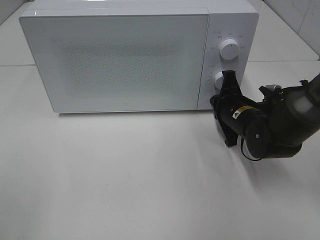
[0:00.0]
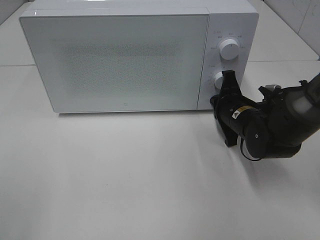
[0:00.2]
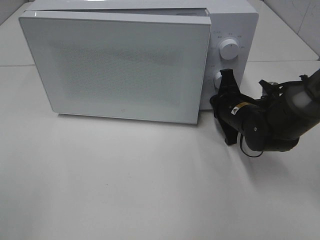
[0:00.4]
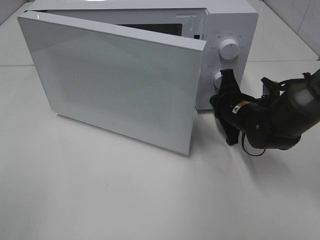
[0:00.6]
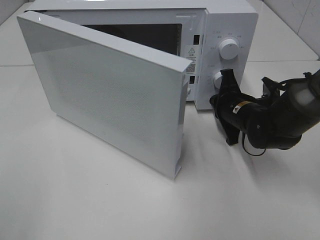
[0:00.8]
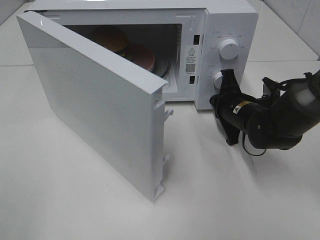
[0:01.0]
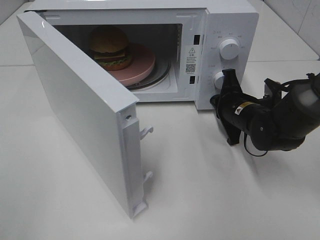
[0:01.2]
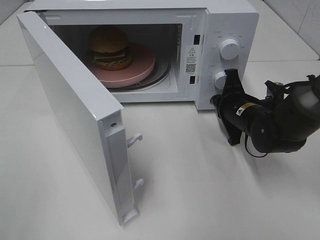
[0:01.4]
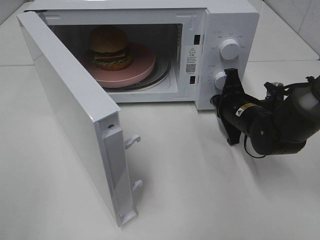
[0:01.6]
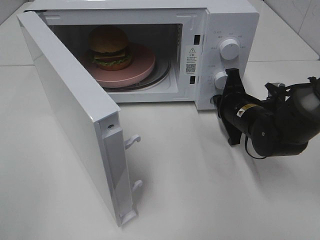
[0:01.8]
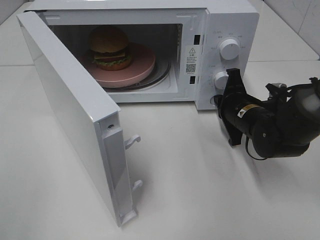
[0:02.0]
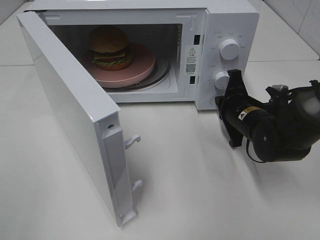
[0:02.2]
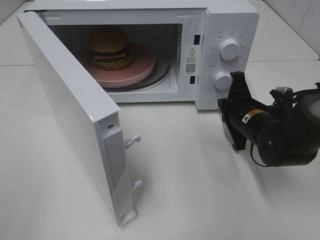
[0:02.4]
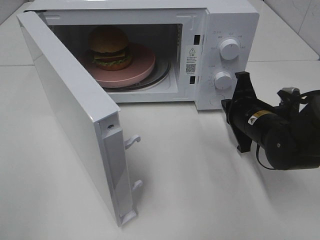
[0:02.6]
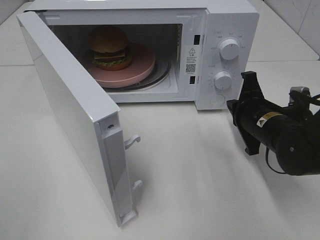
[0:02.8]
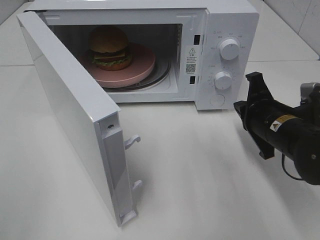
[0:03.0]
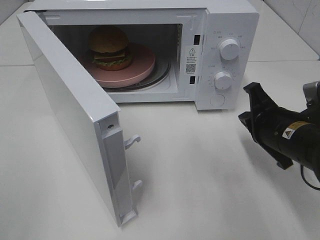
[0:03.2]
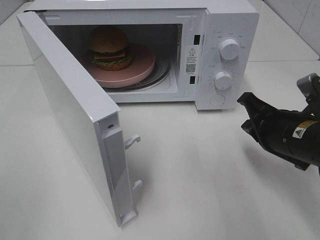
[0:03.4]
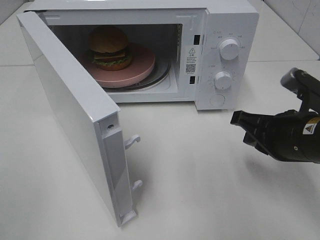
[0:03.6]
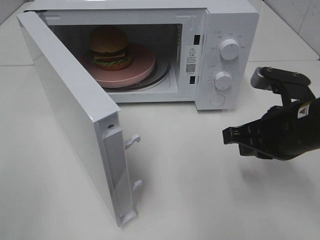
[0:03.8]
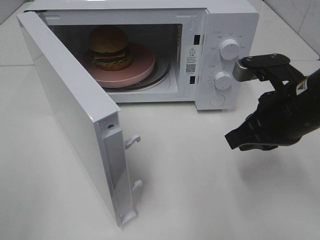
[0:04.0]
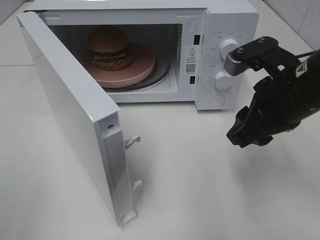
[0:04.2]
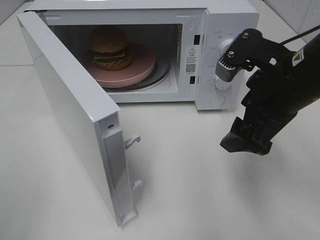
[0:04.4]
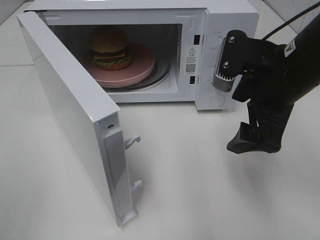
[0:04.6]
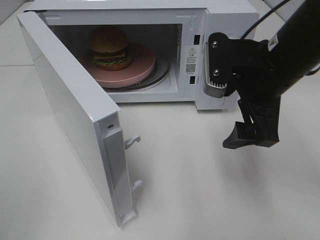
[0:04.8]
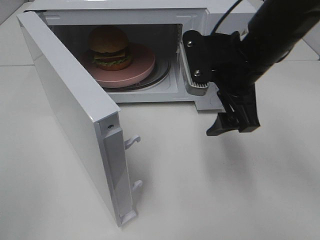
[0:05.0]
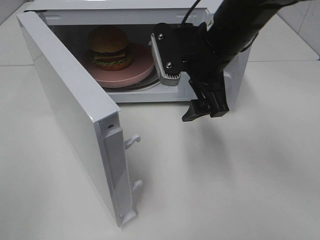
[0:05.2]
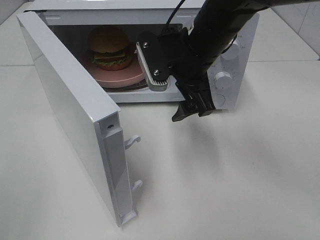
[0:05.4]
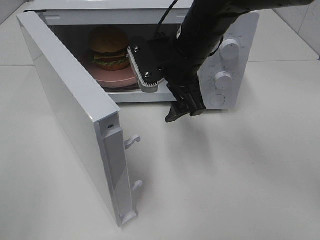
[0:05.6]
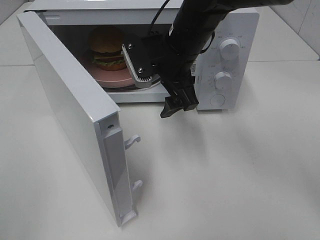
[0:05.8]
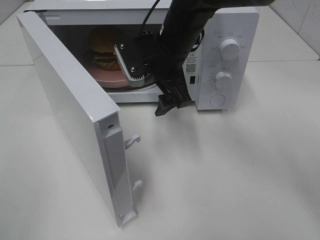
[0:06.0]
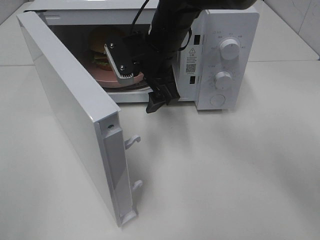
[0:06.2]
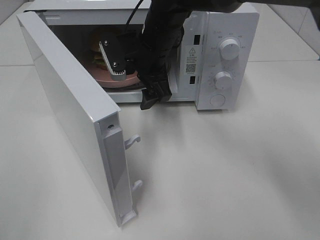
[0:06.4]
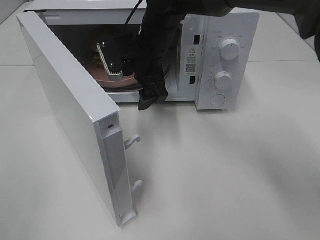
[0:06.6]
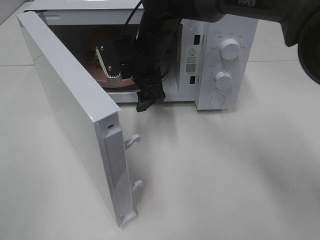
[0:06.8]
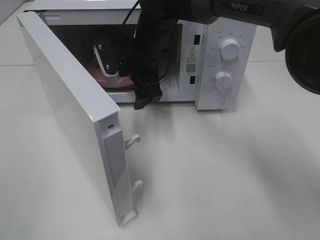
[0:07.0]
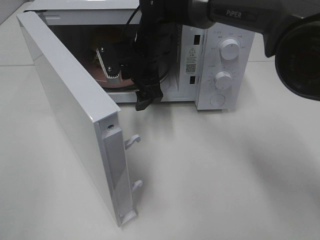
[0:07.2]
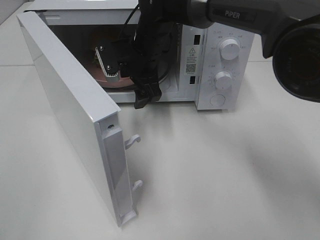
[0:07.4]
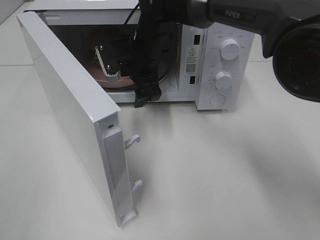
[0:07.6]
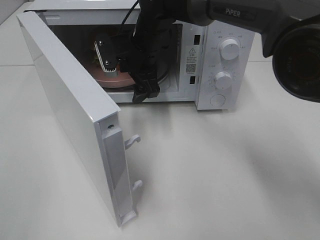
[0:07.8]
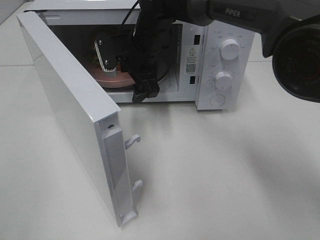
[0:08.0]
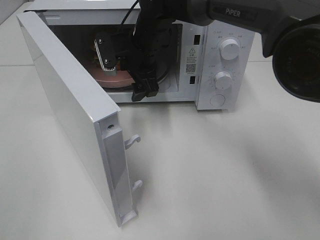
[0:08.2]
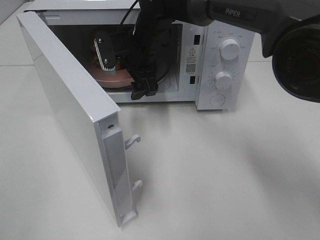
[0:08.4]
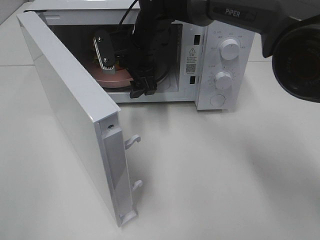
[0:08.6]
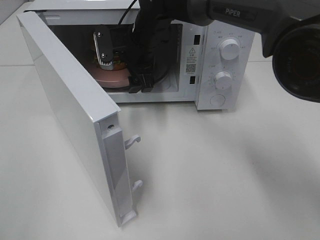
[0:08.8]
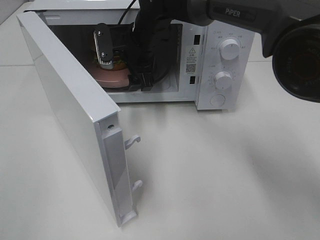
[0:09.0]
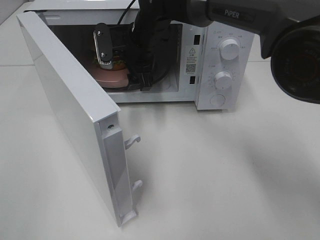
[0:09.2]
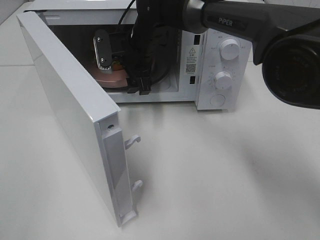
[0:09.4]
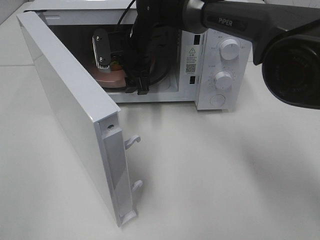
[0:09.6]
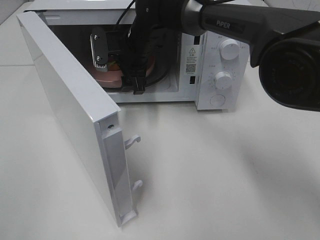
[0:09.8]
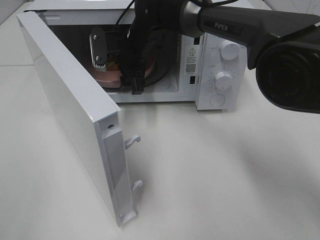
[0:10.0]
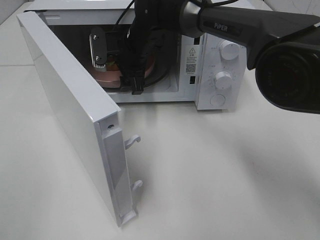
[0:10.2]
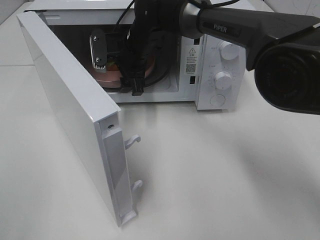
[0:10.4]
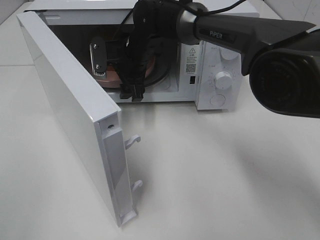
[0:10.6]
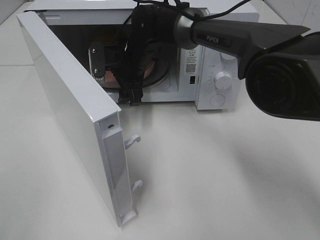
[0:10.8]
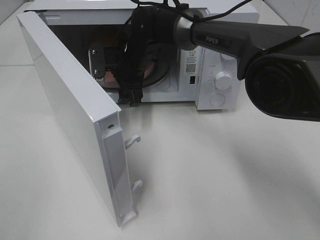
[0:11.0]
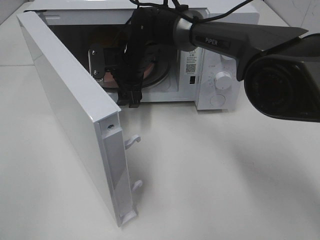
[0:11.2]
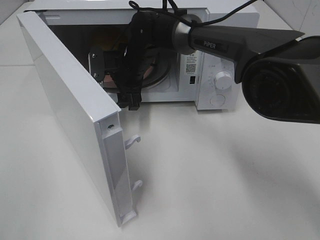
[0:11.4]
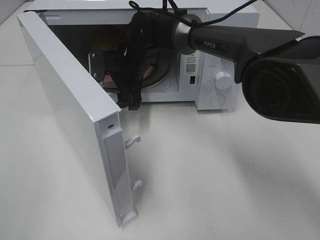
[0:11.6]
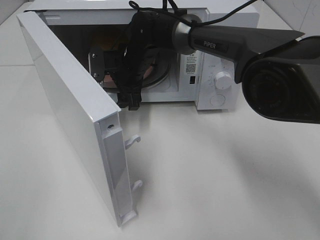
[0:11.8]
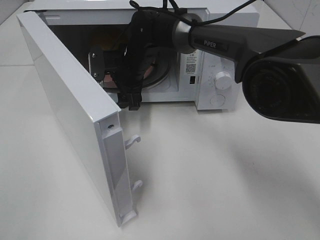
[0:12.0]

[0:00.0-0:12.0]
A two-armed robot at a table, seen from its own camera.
Task of the whole recording: Heat the burger.
Step, 0:00.0 to 0:02.2: Right hand: press the switch.
0:01.6 to 0:03.0: The right gripper goes some 10 cm backward.
0:03.0 to 0:04.4: The right gripper is displaced upward by roughly 10 cm, and opens up.
0:04.4 to 0:06.0: The right gripper is displaced to the left and forward by some 20 cm.
0:06.0 to 0:07.6: The right gripper travels forward by about 5 cm.
0:07.6 to 0:12.0: The grippers make only small movements.

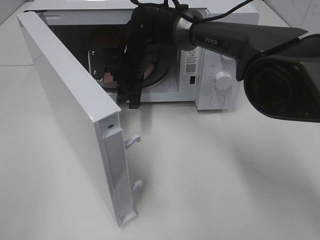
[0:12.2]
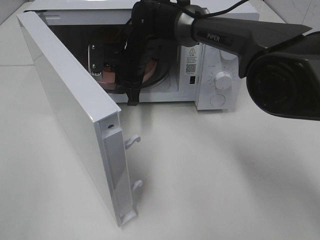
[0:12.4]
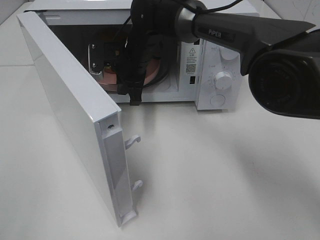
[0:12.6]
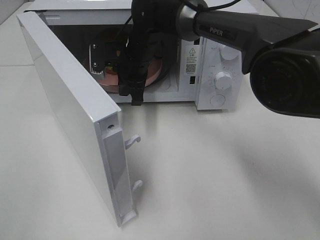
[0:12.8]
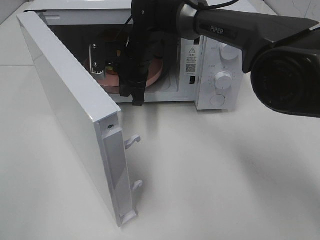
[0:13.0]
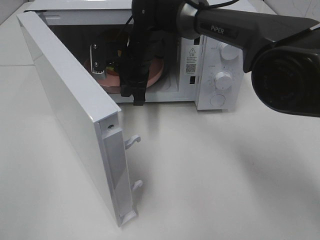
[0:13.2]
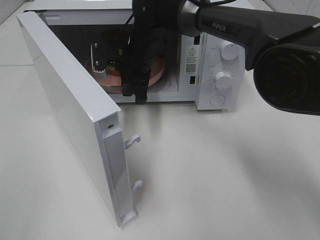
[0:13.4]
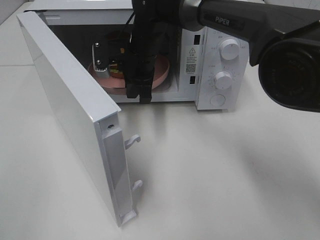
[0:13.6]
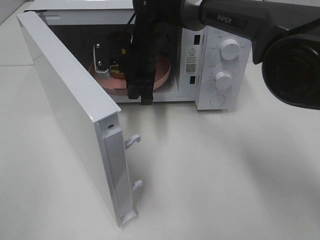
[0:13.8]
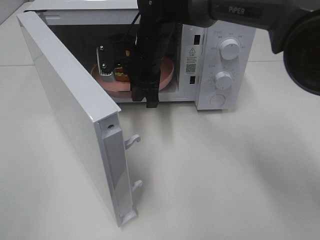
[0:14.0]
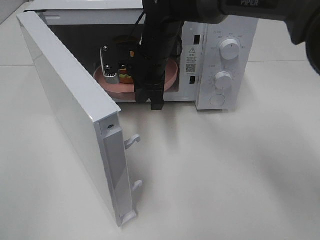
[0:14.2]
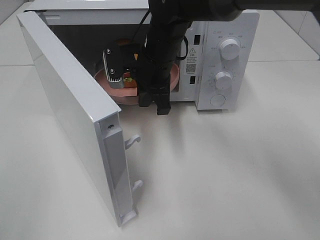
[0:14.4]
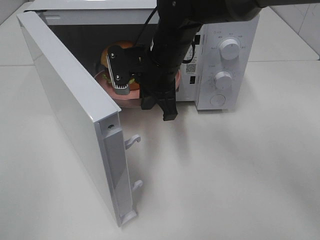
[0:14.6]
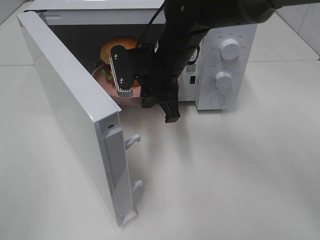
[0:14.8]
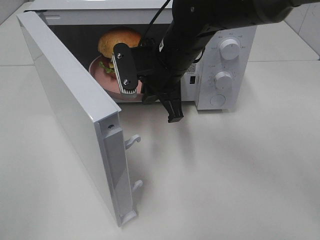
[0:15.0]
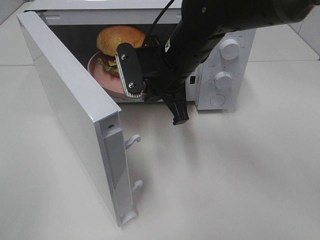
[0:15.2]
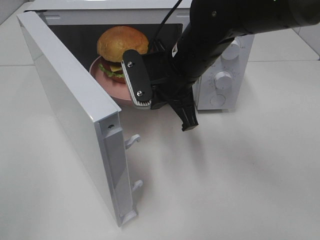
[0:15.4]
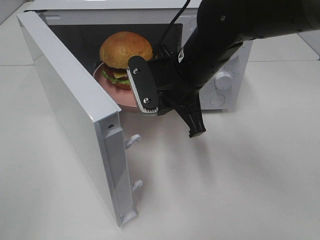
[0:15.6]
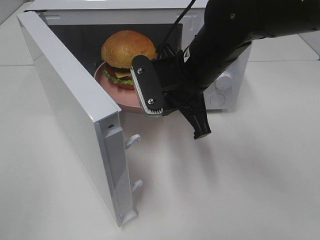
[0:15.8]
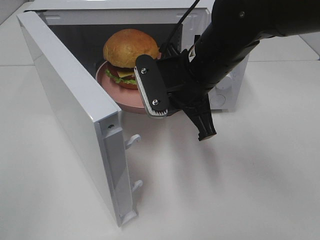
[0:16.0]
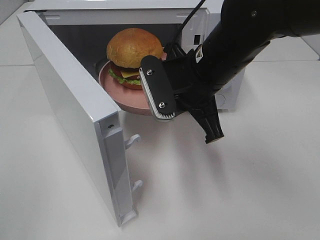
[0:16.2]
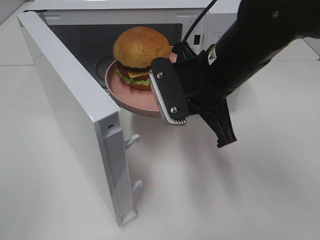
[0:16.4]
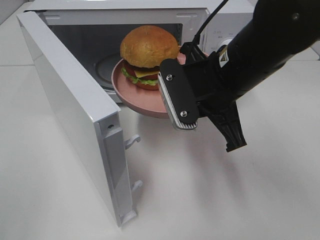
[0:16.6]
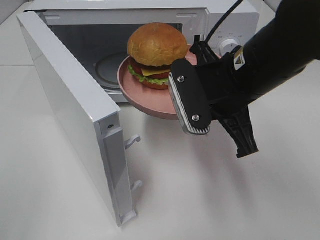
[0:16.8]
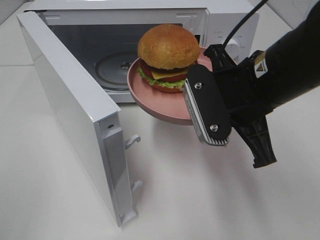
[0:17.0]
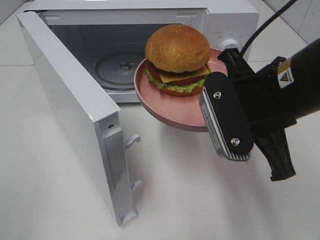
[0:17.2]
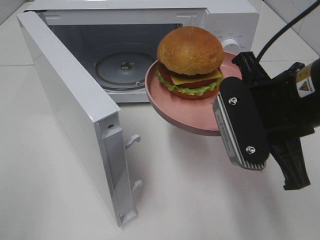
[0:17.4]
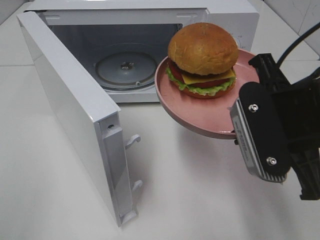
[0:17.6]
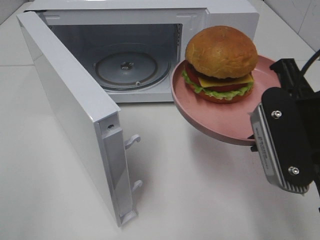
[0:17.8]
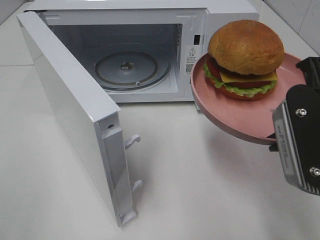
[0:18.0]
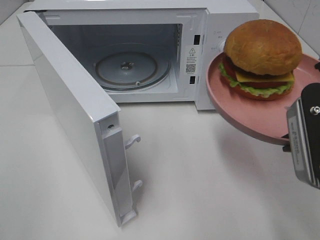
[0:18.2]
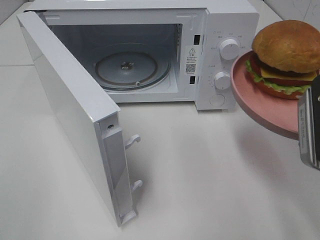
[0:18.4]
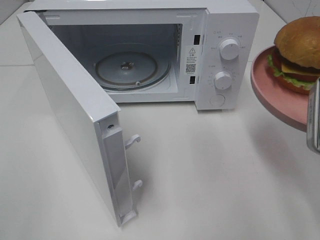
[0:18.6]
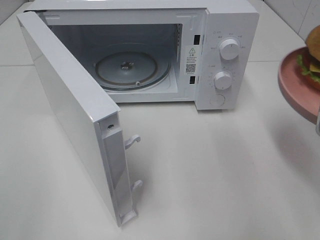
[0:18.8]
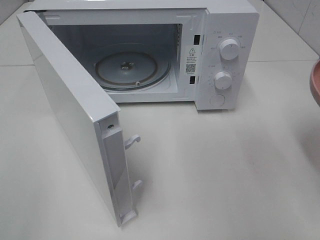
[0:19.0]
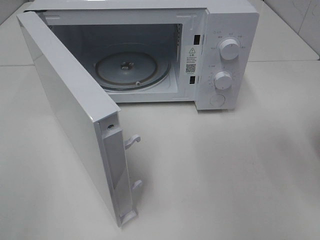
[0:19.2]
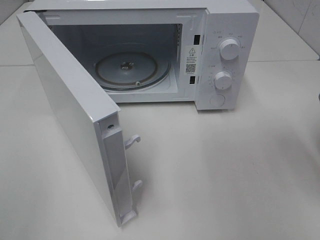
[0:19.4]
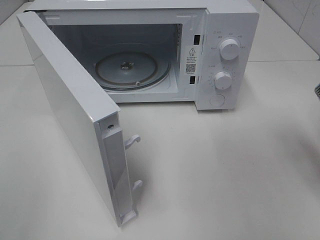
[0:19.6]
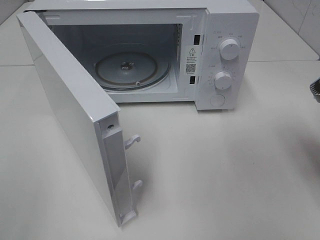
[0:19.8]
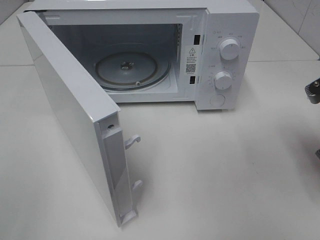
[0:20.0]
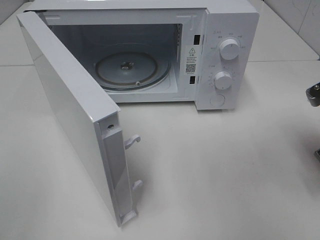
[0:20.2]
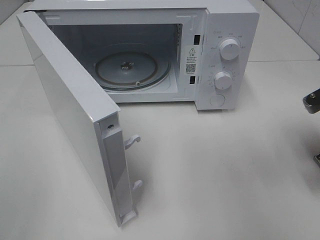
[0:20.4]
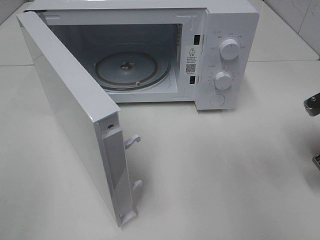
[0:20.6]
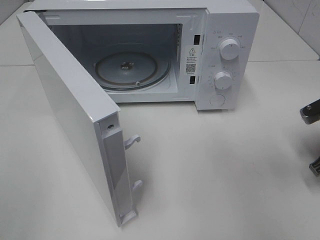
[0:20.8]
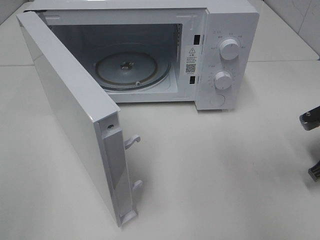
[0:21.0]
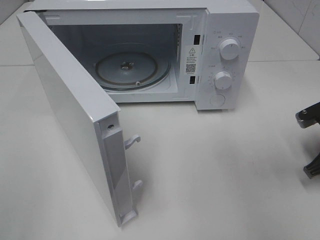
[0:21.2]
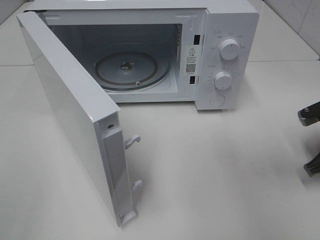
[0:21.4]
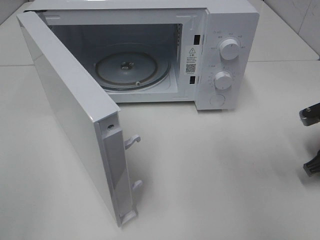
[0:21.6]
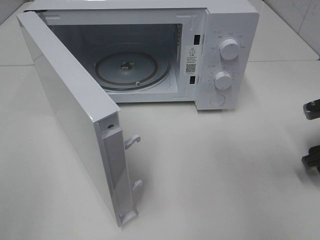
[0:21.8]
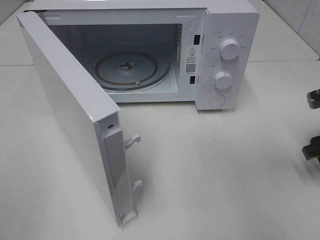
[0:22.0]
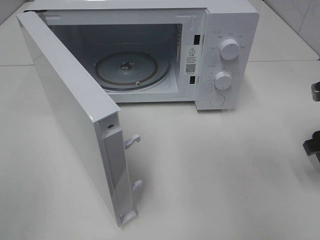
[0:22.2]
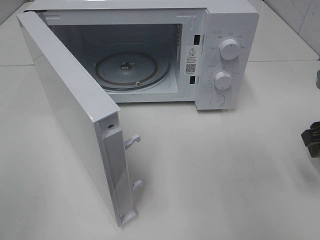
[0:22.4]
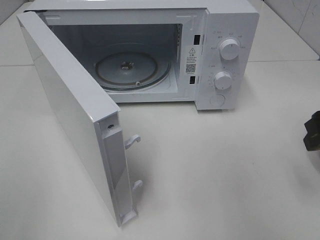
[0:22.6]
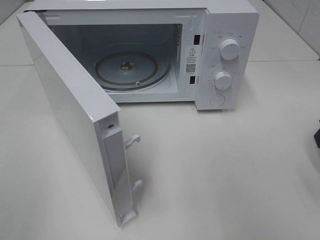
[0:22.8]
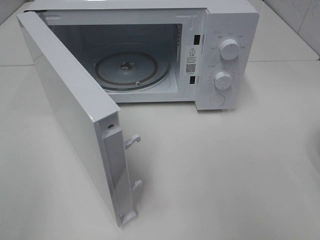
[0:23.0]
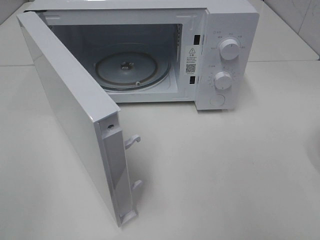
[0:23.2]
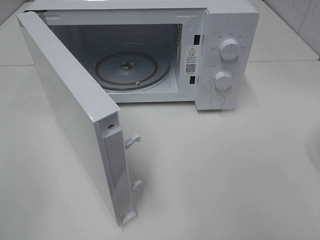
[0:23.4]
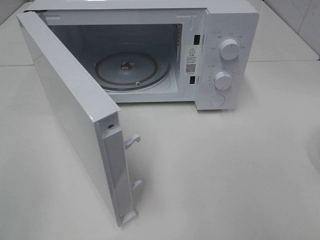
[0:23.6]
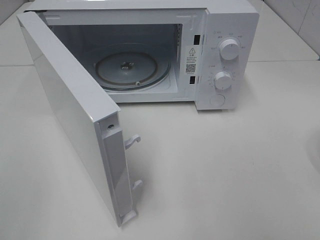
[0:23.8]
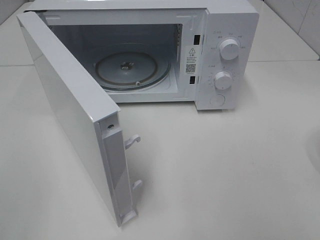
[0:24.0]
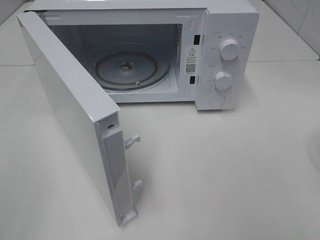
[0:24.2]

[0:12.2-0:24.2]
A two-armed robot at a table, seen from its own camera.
Task of the whole recording: Heat the burger.
Step, 0:12.6 to 0:21.4: Right hand: place the plate on the table.
0:12.2 to 0:13.8: The right gripper closes up.
0:13.8 to 0:15.2: The right gripper moves backward and to the right, about 10 cm.
0:15.2 to 0:16.6: The right gripper travels backward and to the right by approximately 10 cm.
0:16.6 to 0:18.2: The right gripper heads backward and to the right, covering approximately 15 cm.
0:18.2 to 0:19.8: The right gripper shifts approximately 10 cm to the right and forward.
0:19.8 to 0:21.2: The right gripper moves downward, roughly 10 cm.
0:21.2 to 0:22.6: The right gripper travels upward by approximately 10 cm, and opens its fingers.
0:22.6 to 0:24.2: The right gripper goes approximately 20 cm backward.
